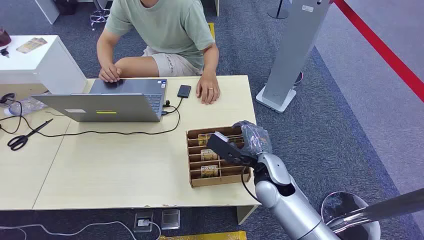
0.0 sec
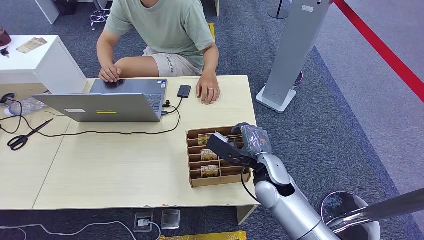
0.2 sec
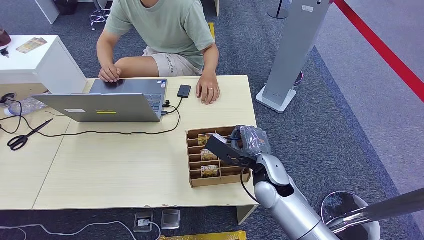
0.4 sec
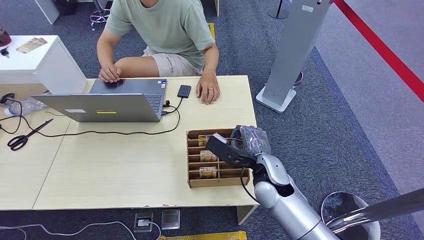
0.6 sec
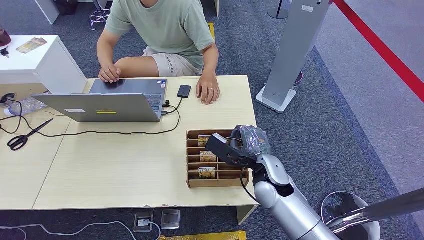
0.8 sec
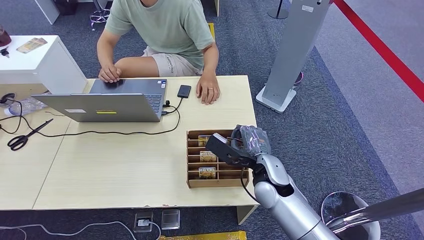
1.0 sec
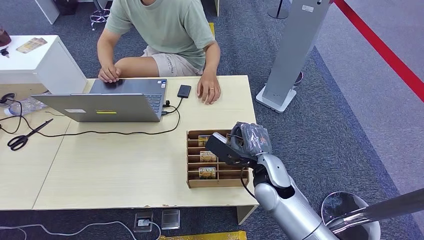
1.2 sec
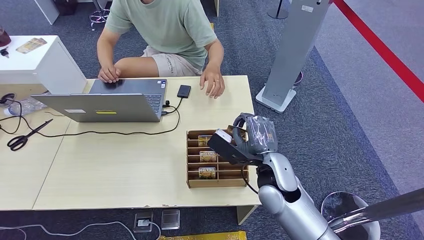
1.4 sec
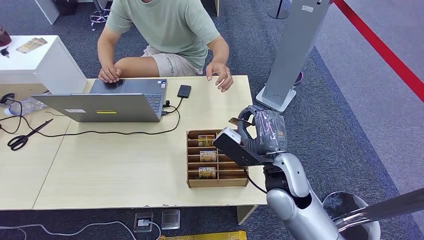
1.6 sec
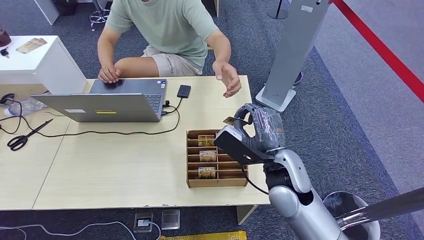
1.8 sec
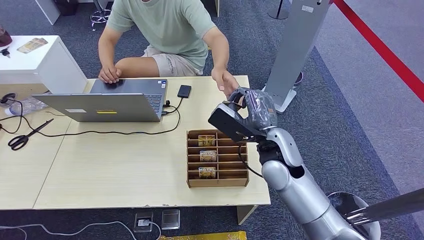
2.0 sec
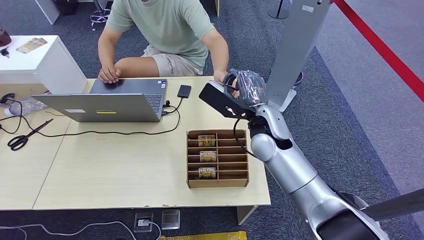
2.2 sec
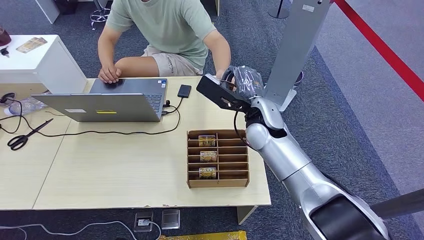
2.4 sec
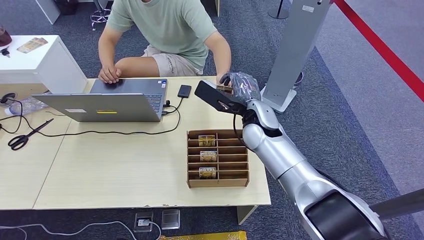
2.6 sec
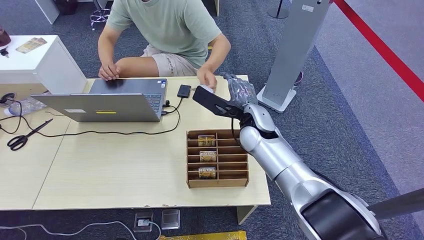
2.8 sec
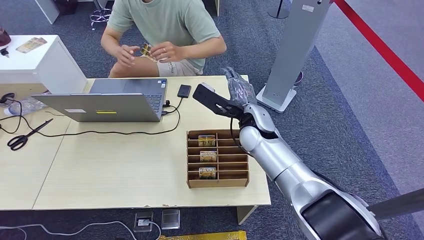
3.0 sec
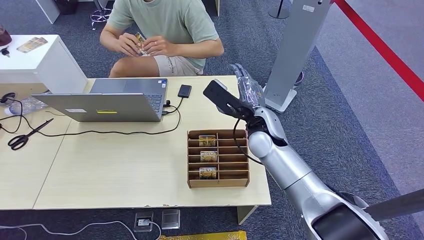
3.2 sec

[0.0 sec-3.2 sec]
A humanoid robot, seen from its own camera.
Step, 0.0 sec to 1.4 sec: Pick up the key card from the card box.
Step, 2.4 sec to 3.2 sec: Hand the key card to the target.
1.6 sec to 3.2 sec: The right hand moves forward, approximately 10 cm.
